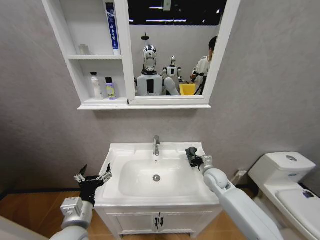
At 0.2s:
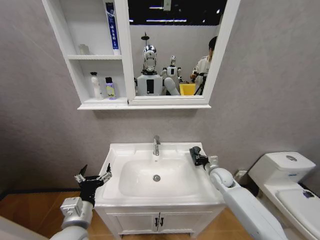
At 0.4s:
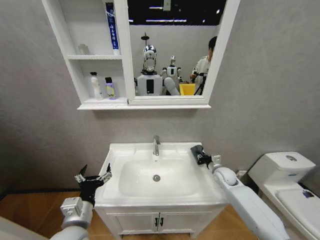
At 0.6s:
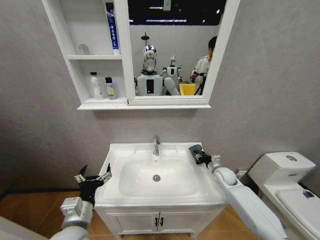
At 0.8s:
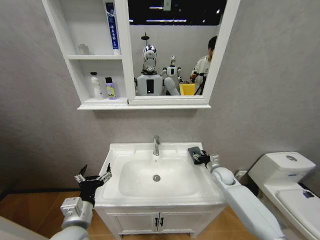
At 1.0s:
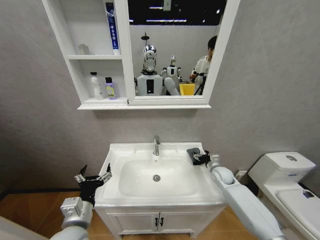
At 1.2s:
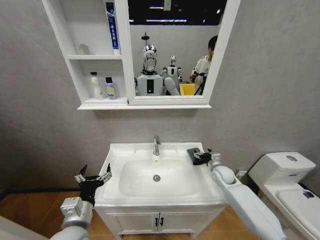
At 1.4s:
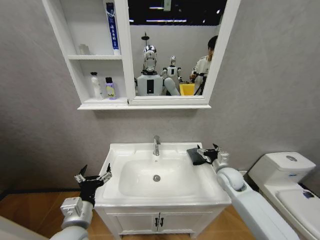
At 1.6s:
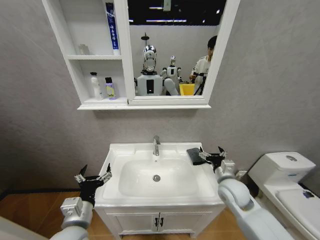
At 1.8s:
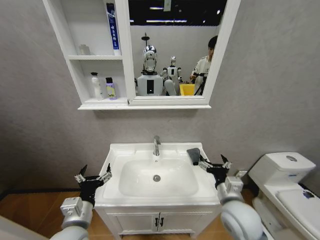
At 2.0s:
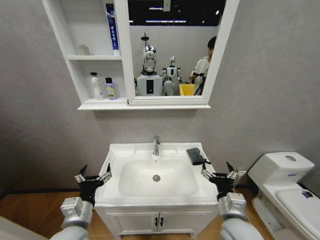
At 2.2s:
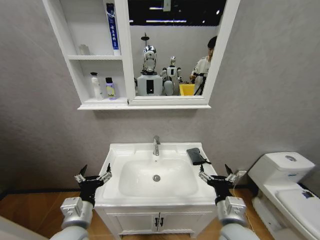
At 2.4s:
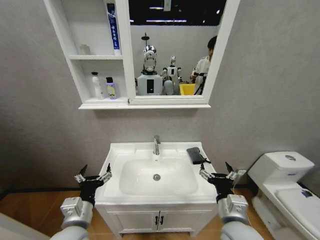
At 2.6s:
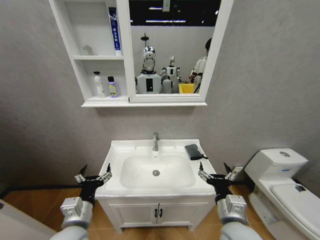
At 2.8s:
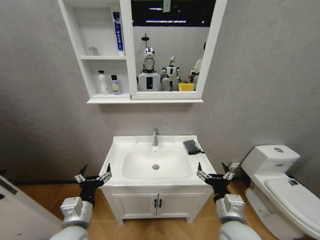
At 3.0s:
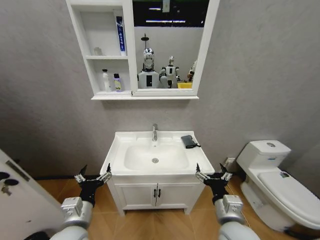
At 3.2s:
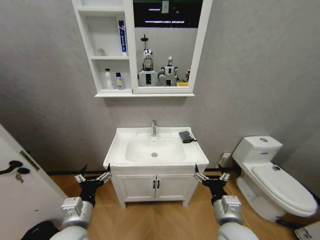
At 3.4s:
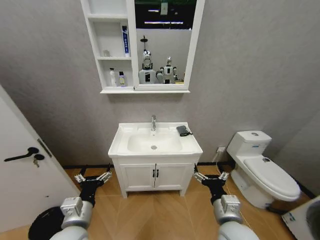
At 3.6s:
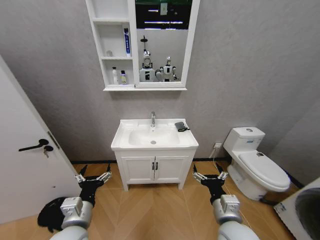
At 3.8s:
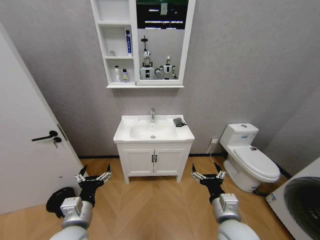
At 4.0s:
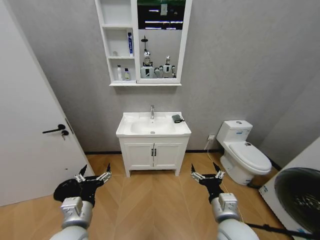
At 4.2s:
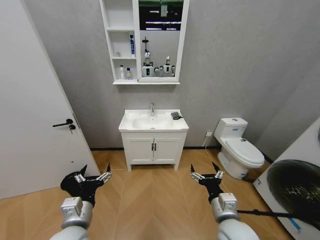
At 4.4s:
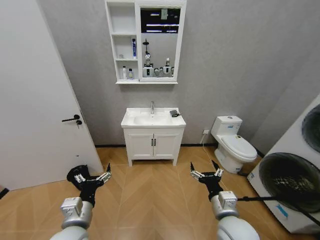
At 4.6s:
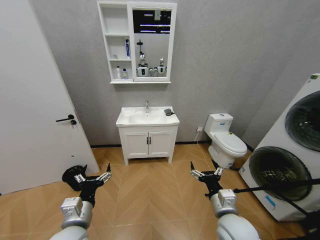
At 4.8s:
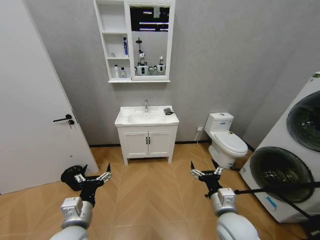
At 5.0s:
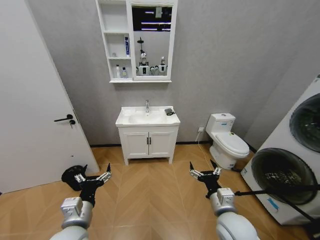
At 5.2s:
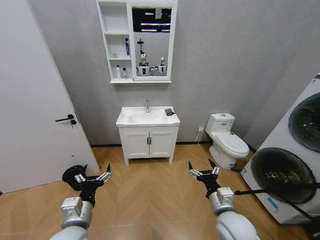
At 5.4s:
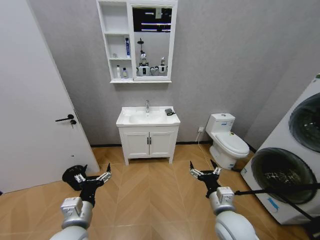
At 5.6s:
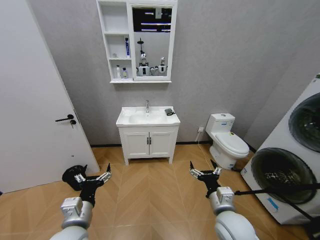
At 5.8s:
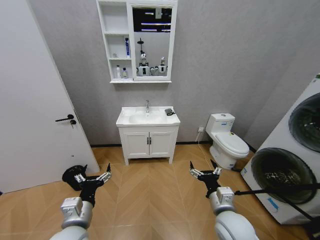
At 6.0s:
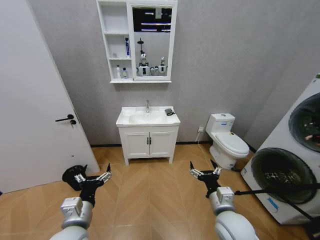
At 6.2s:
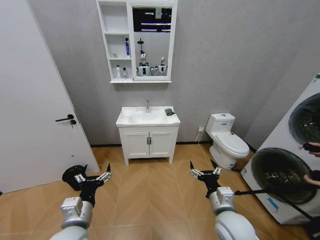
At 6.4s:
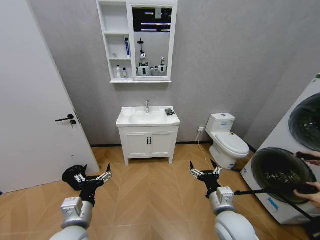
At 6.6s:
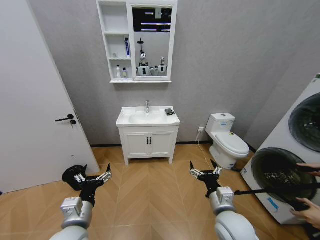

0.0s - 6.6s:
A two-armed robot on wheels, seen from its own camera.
Task of the whole recording: Move facial cleanser and shampoo from washbasin to cabinet, then wipe washbasin with towel.
0.0s - 1.6s: The right gripper moves backward and upward, about 10 cm, and opens up.
1.6s - 3.2s: The right gripper travels backward and to the left by approximately 15 cm.
5.0s - 6.6s: The two grippers keep their place.

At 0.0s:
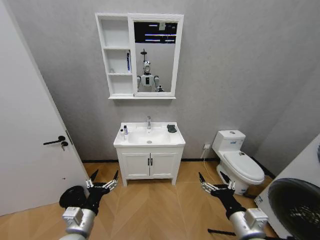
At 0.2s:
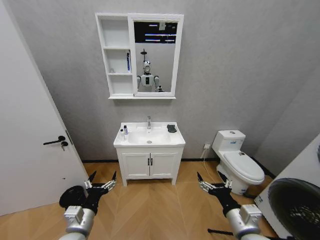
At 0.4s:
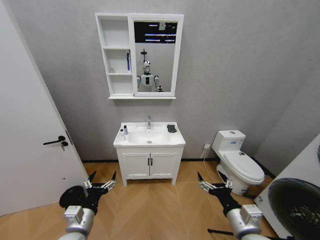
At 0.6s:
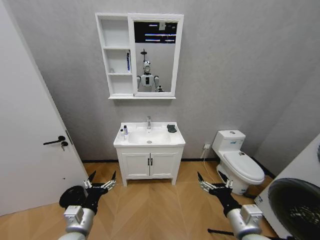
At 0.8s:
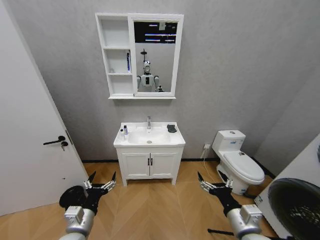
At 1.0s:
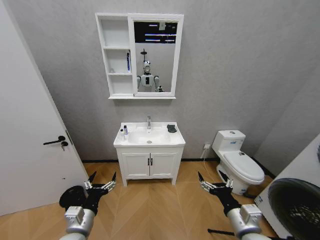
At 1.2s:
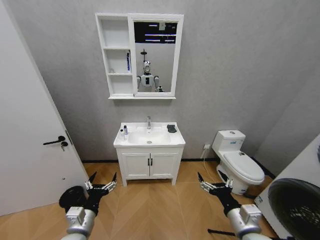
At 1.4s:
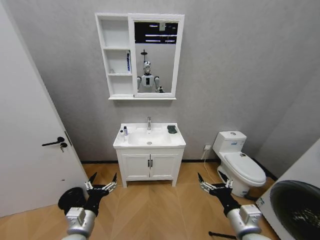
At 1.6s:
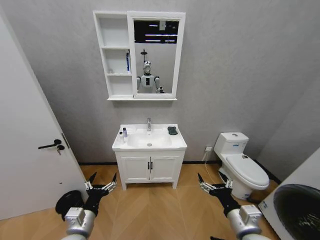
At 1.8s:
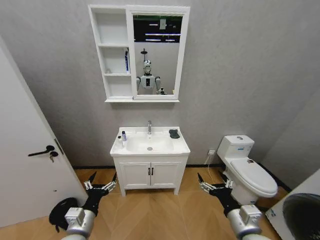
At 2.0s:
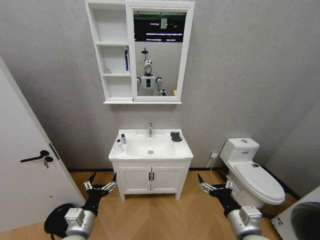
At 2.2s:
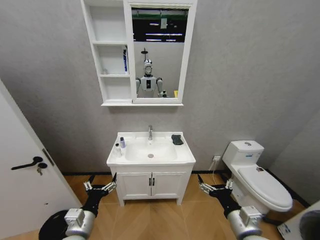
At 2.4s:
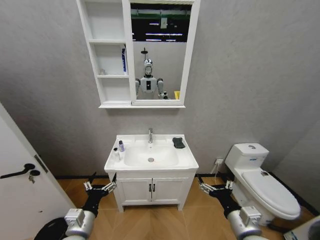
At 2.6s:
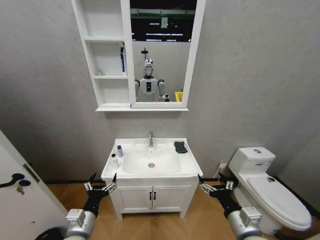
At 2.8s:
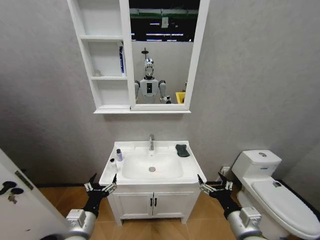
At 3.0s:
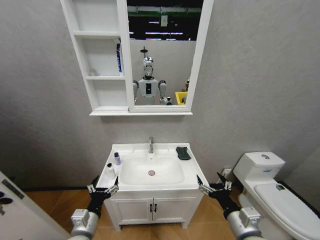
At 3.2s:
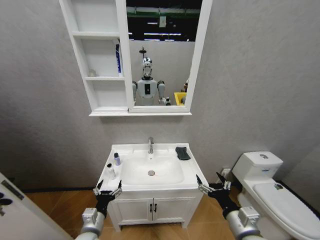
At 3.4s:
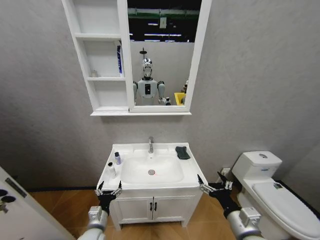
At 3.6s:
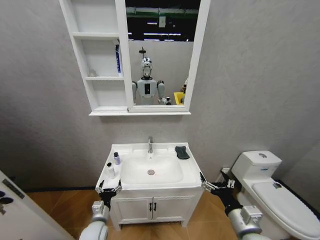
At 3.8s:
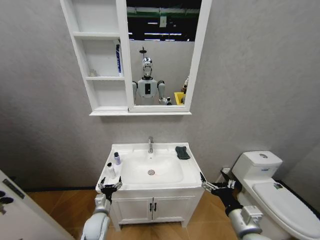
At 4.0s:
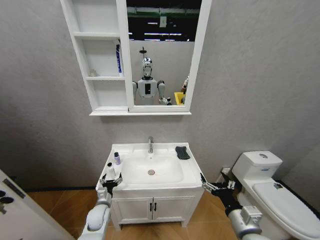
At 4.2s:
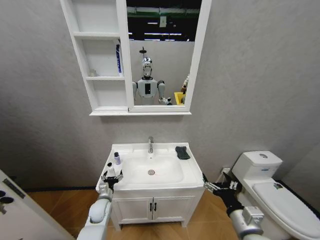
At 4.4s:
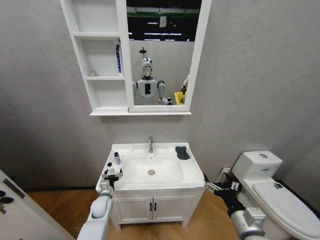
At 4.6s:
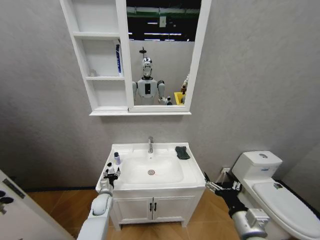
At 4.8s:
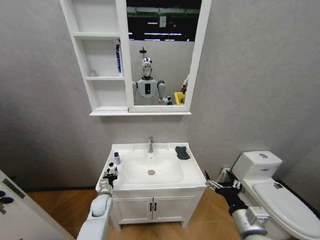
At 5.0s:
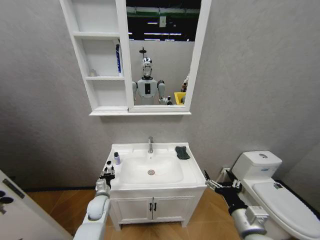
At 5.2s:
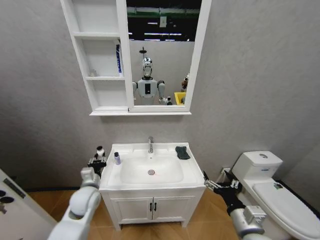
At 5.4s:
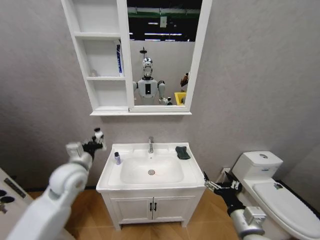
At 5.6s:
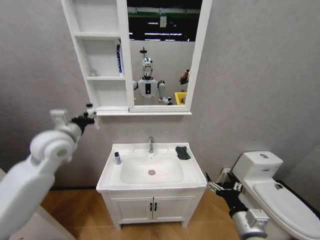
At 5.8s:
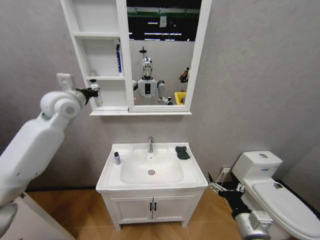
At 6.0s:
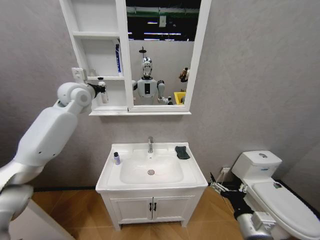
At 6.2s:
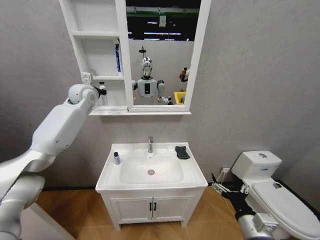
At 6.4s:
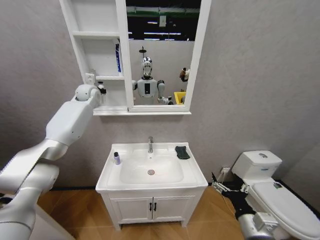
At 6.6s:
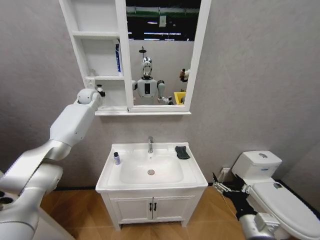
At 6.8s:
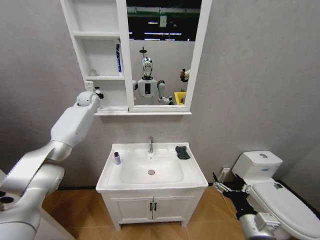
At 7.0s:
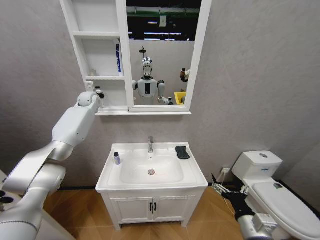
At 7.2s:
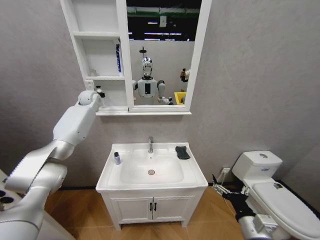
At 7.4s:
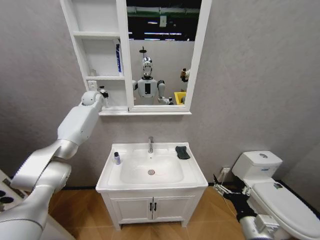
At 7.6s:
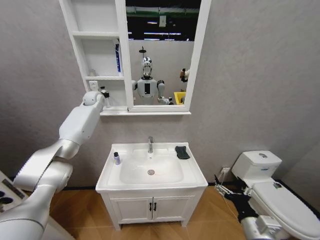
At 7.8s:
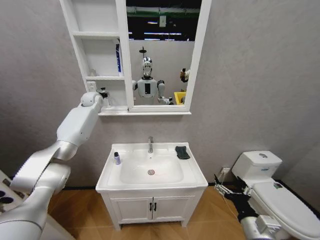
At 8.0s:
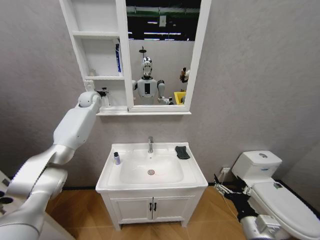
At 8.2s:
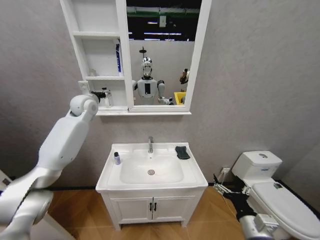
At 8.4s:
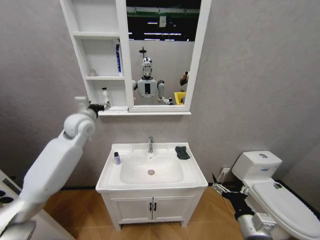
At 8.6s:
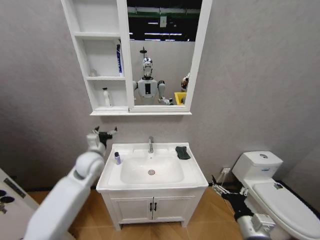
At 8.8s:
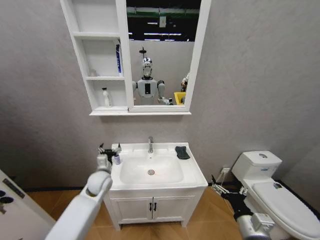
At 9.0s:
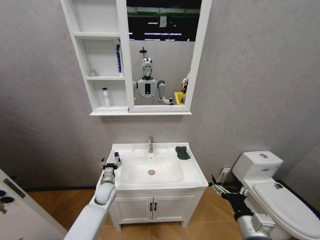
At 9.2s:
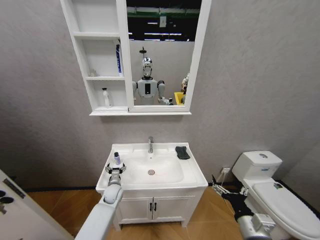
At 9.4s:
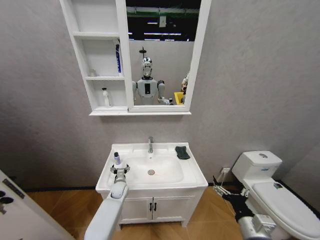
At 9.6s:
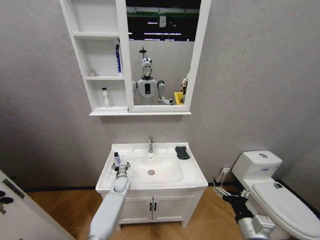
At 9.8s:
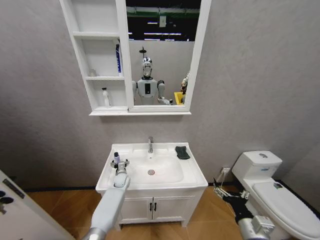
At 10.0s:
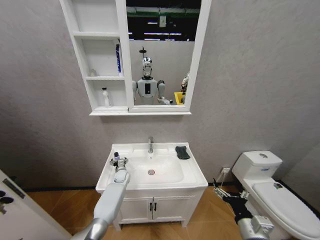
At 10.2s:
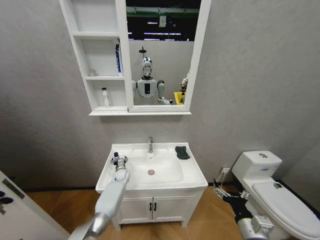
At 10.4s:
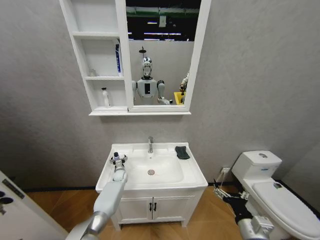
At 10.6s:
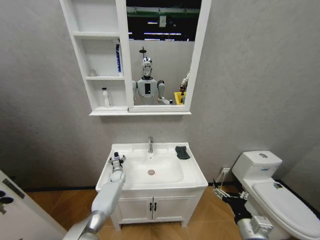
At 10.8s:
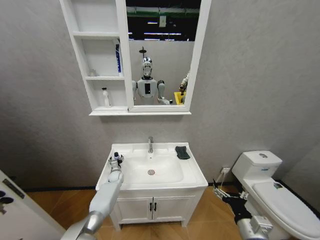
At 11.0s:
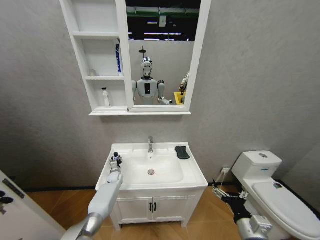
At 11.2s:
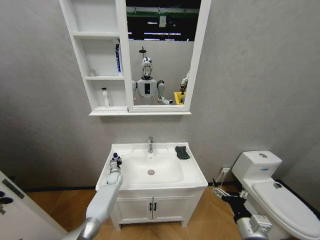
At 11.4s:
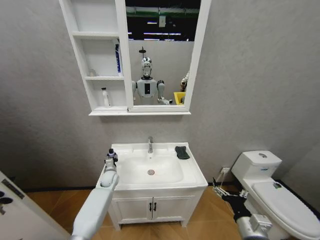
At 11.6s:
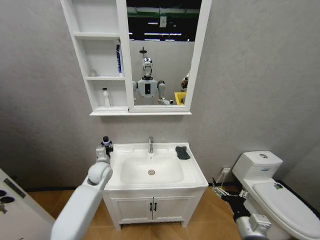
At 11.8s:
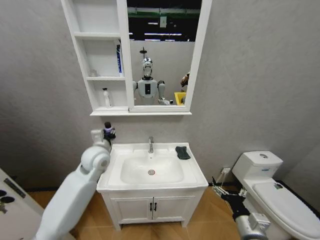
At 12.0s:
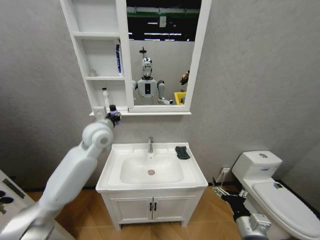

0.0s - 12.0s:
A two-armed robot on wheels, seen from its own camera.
Task of the whole recording: Move facial cleanser and shampoo from washbasin to cabinet, then wipe washbasin with towel.
3.0s - 4.4s: The left gripper heads forward and downward, covering approximately 20 cm.
4.4s - 6.0s: The left gripper shifts approximately 50 cm upward, and closes its fingers.
6.0s - 7.6s: The left gripper travels forward by approximately 15 cm.
7.6s - 9.0s: The left gripper travels downward and backward by some 50 cm, and opens.
9.0s - 10.4s: The left gripper heads forward, covering roughly 15 cm.
10.4s - 12.0s: The left gripper is displaced upward by about 40 cm, and closes.

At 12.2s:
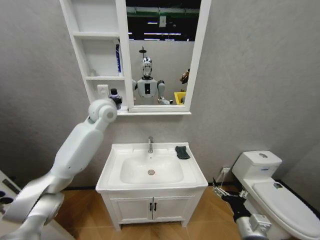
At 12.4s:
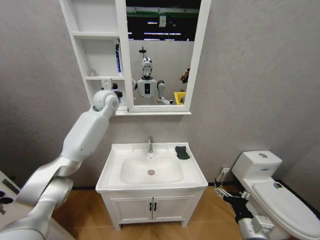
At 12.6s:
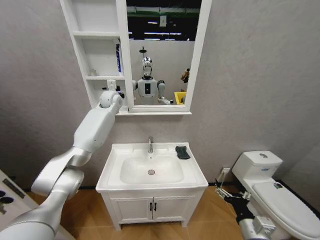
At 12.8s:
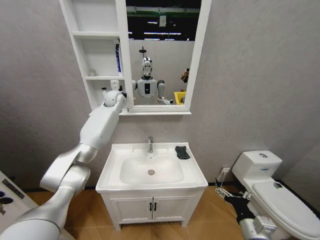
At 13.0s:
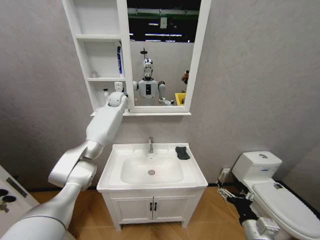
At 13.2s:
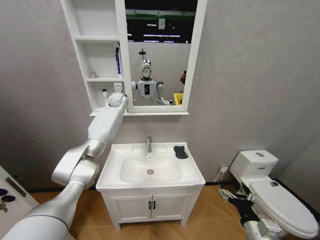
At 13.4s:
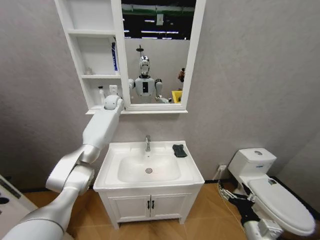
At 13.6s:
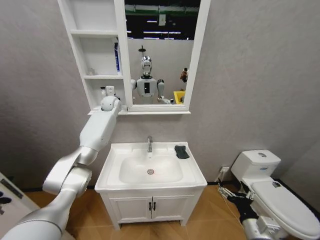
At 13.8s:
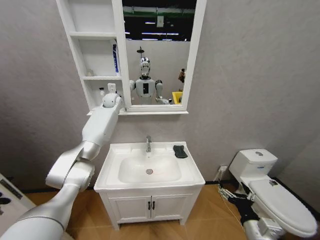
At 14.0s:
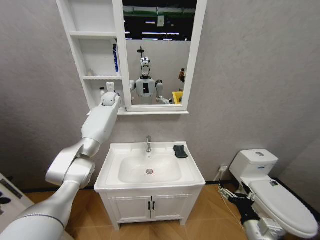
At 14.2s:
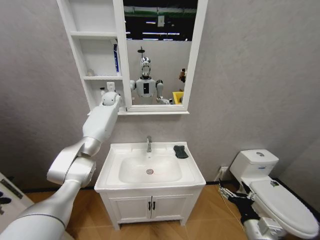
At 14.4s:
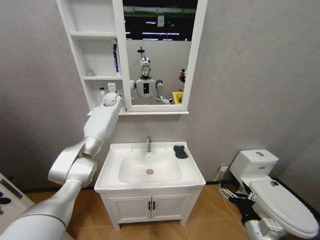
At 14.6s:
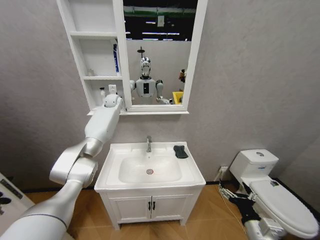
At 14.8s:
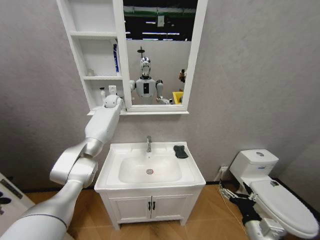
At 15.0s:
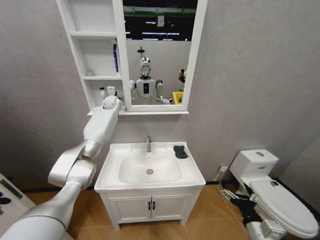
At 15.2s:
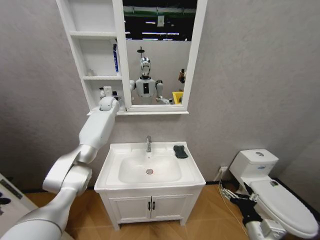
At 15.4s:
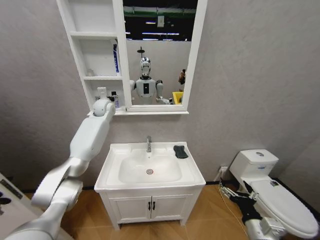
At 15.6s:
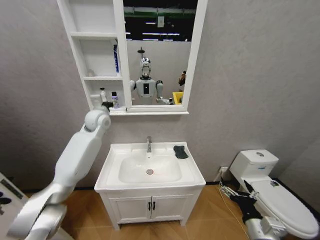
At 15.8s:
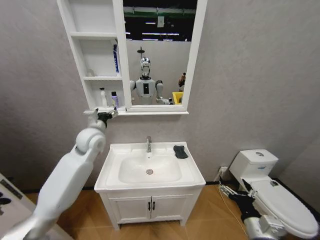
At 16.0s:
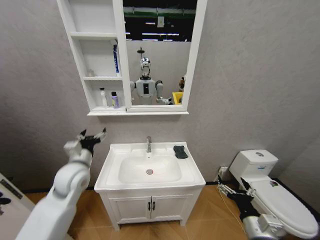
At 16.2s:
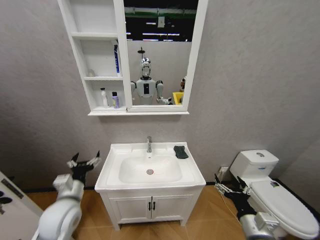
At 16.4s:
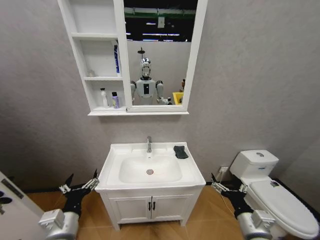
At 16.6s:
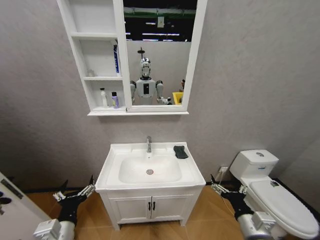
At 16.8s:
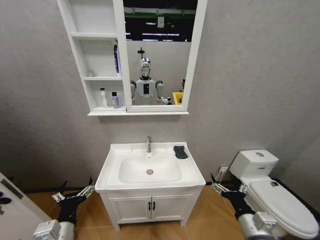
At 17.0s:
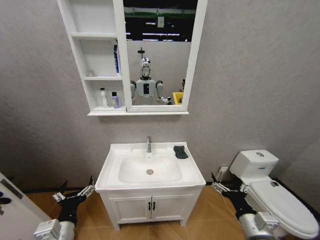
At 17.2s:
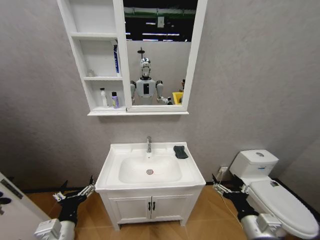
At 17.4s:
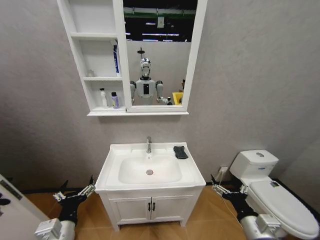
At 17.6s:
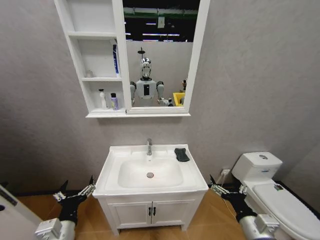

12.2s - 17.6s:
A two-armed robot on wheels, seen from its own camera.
Task of the whole recording: Move facial cleanser and shampoo from washbasin to cabinet, then wipe washbasin with towel.
12.2s - 13.6s: The left gripper travels forward by about 15 cm.
13.6s - 15.0s: The left gripper opens its fingers.
15.0s - 16.2s: The left gripper heads backward and downward, covering about 50 cm.
16.2s - 17.6s: The left gripper is displaced backward by some 10 cm.
